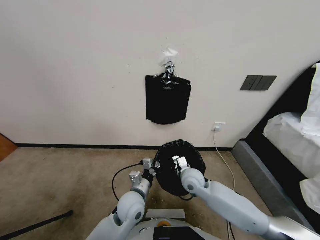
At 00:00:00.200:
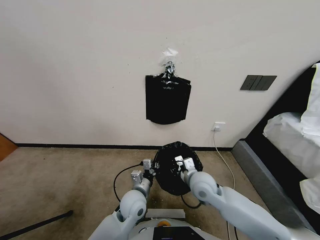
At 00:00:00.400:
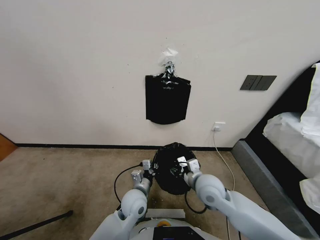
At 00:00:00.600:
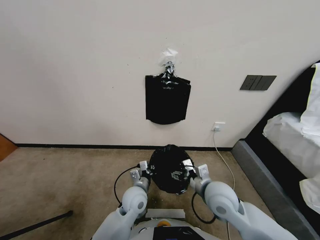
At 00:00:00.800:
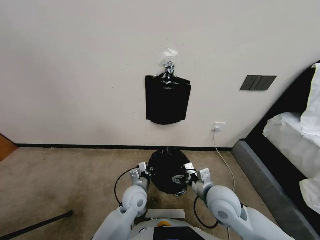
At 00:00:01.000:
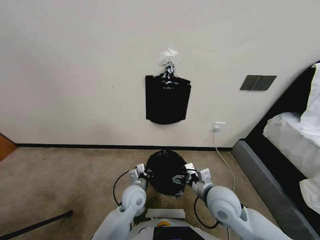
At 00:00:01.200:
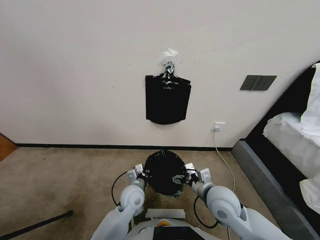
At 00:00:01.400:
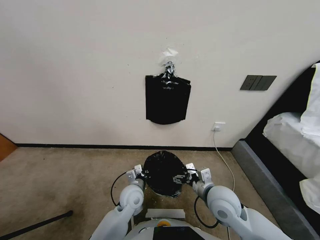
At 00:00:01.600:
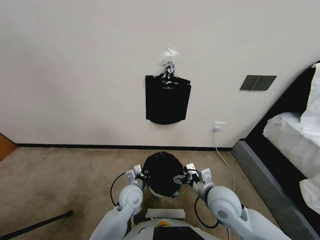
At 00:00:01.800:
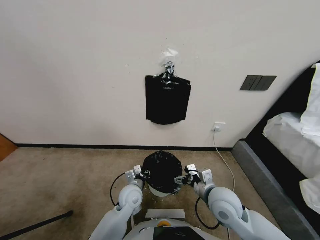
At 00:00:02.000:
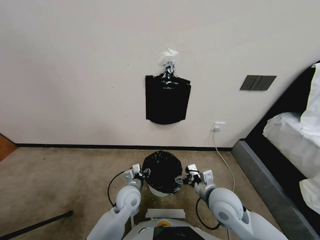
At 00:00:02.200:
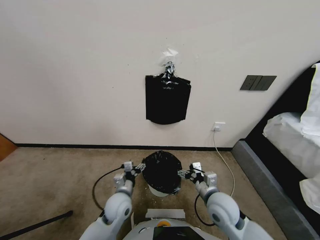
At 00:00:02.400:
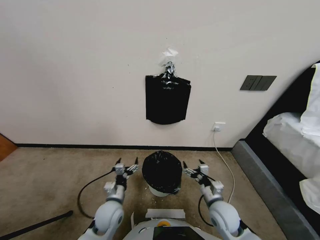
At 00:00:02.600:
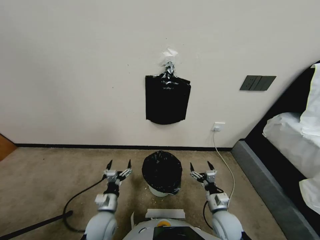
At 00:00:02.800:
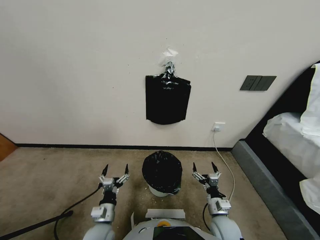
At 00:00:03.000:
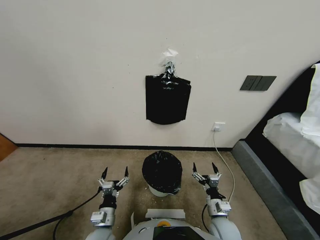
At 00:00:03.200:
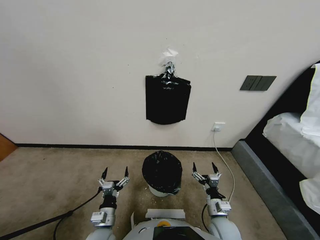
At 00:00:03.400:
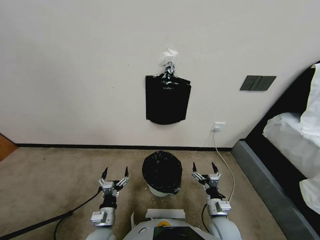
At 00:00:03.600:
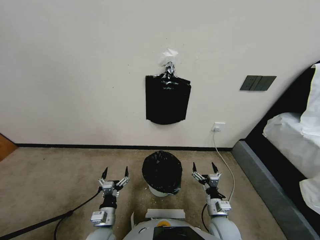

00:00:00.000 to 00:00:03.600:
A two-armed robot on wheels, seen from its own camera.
Task of the whole recording: Place a trash bag onto the trash bin.
00:00:00.000 to 00:00:01.800: The right gripper moves backward and to the right, roughly 10 cm, and opens up. Meanwhile the left gripper opens its fingers.
00:00:01.800 to 00:00:03.600: The left gripper is displaced backward and to the left by about 15 cm, and opens; the right gripper goes roughly 15 cm downward.
